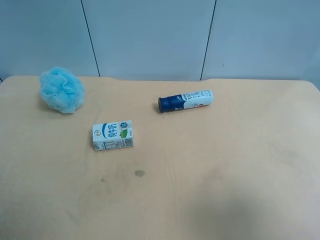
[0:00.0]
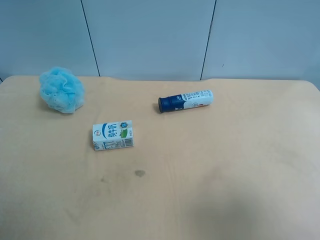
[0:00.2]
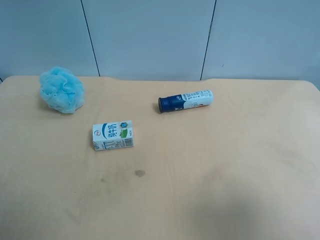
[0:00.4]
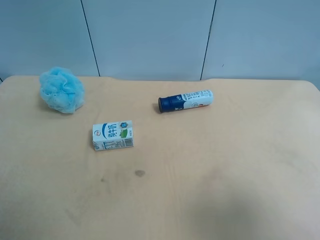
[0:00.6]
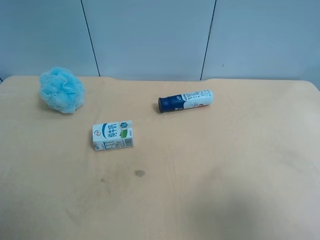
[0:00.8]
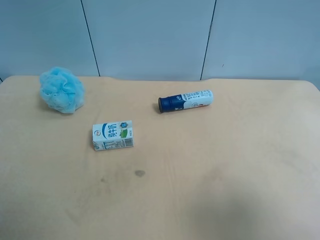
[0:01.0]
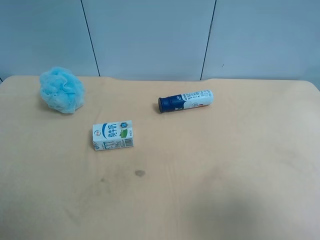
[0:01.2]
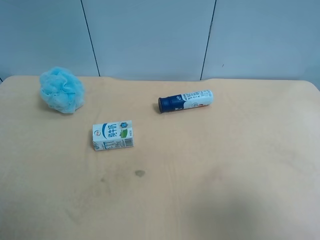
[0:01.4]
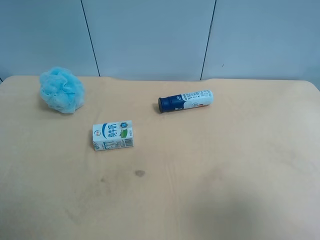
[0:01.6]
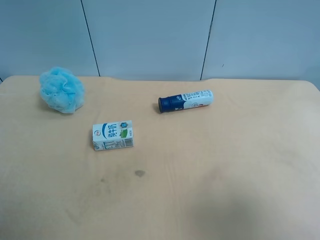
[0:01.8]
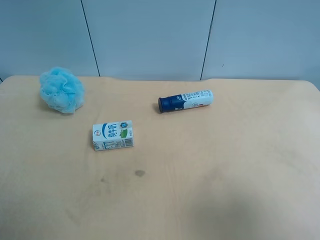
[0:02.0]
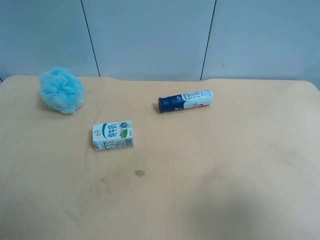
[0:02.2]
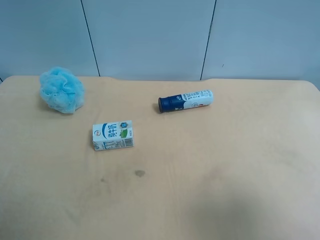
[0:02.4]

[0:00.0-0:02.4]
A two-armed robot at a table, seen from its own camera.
Task of the whole recording: use the right gripper to pick up the item and transfer it from the right gripper to the left gripper.
0:01.2 to 0:02.4: Neither gripper changes place.

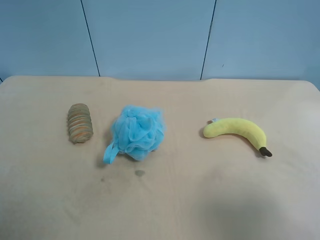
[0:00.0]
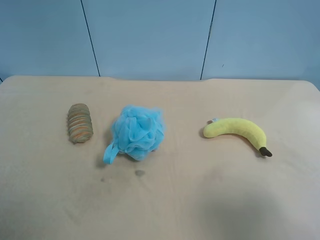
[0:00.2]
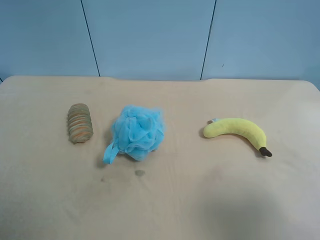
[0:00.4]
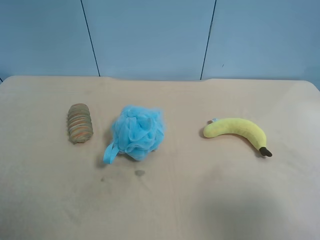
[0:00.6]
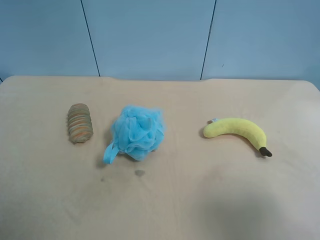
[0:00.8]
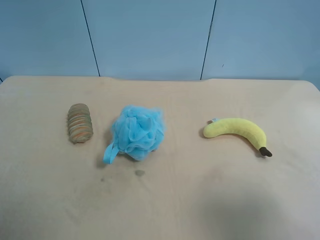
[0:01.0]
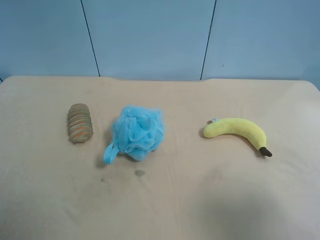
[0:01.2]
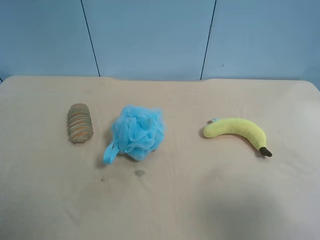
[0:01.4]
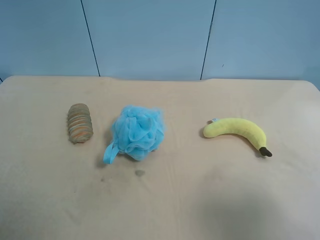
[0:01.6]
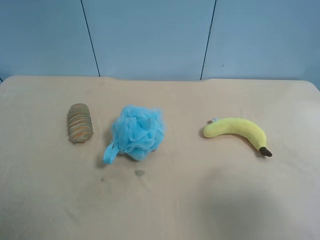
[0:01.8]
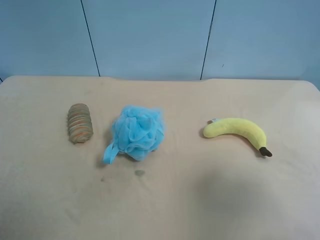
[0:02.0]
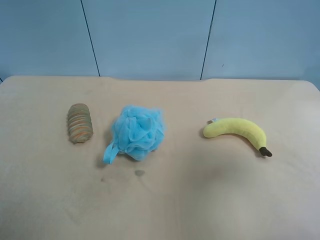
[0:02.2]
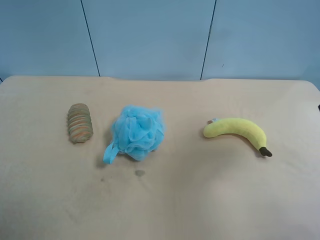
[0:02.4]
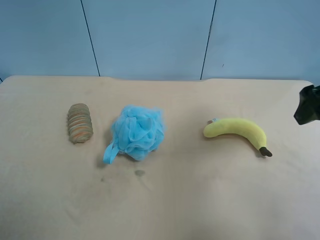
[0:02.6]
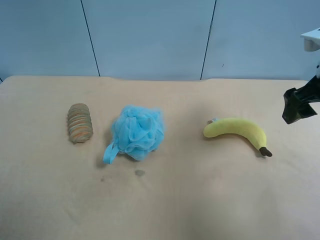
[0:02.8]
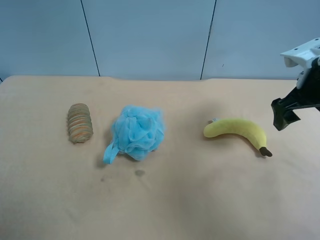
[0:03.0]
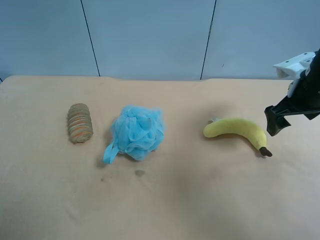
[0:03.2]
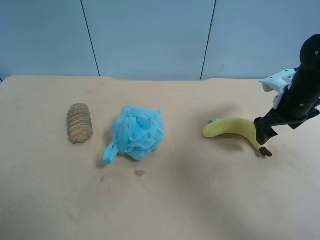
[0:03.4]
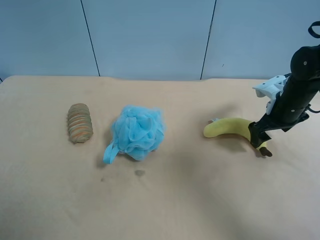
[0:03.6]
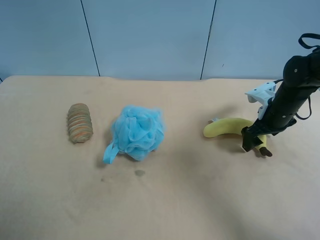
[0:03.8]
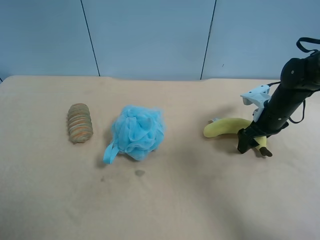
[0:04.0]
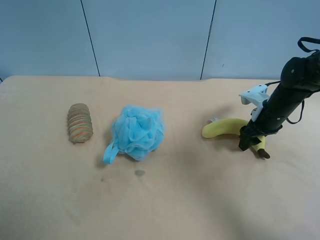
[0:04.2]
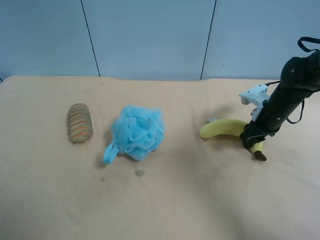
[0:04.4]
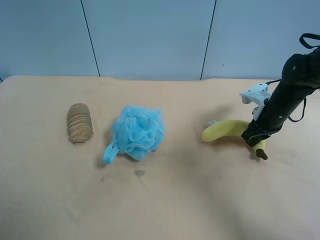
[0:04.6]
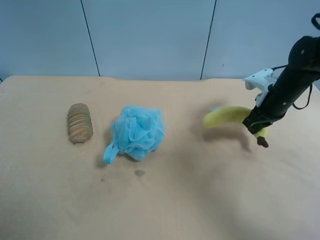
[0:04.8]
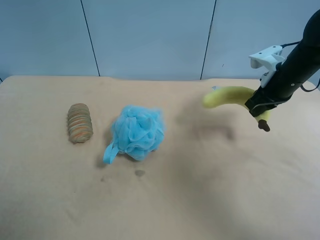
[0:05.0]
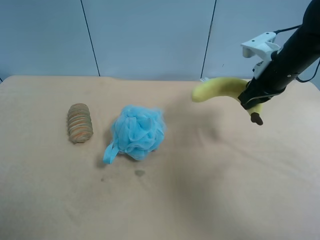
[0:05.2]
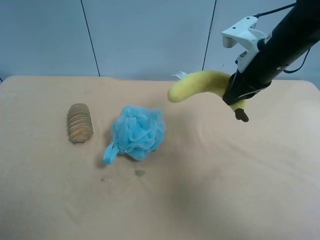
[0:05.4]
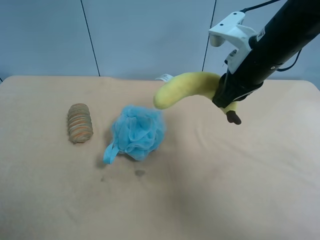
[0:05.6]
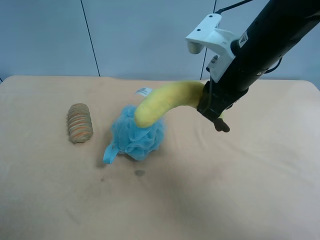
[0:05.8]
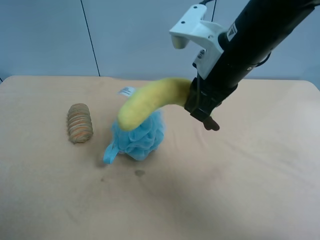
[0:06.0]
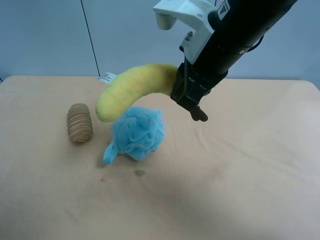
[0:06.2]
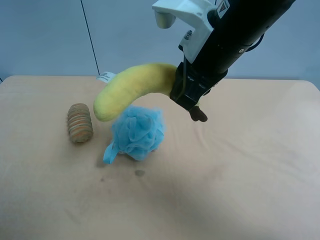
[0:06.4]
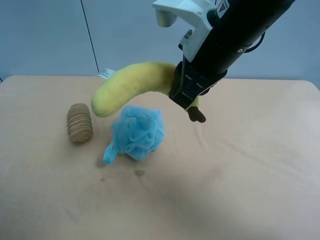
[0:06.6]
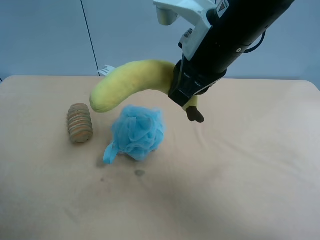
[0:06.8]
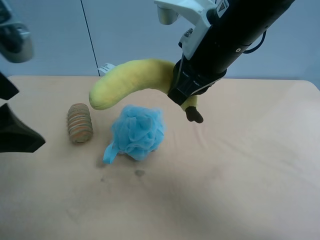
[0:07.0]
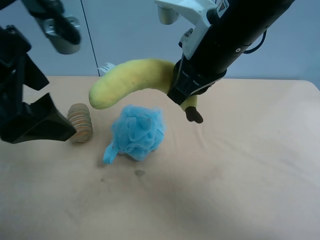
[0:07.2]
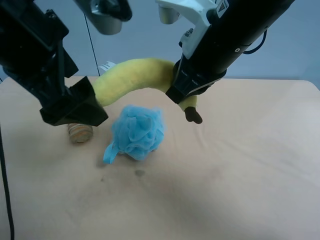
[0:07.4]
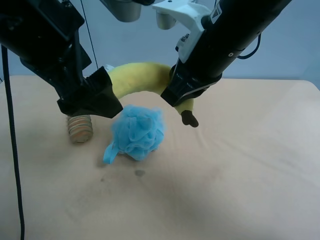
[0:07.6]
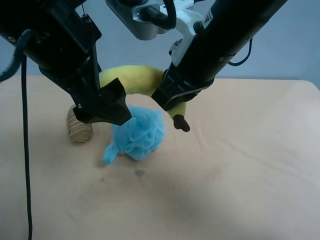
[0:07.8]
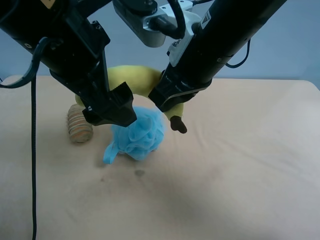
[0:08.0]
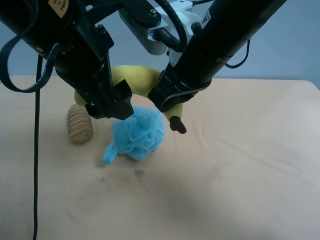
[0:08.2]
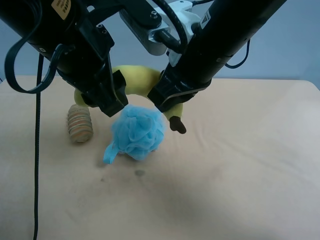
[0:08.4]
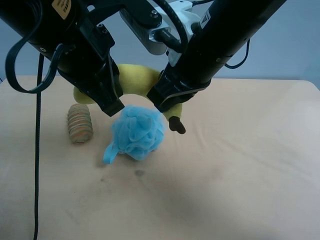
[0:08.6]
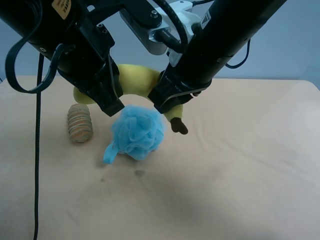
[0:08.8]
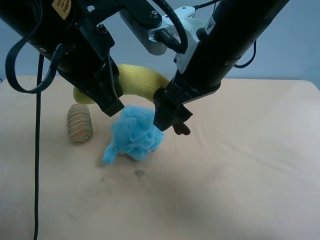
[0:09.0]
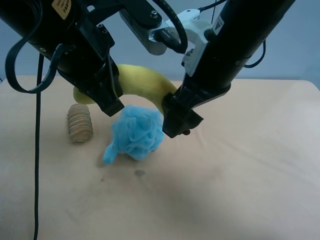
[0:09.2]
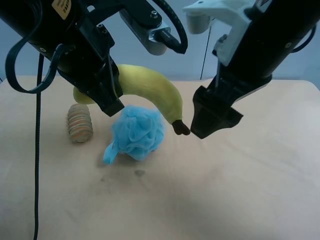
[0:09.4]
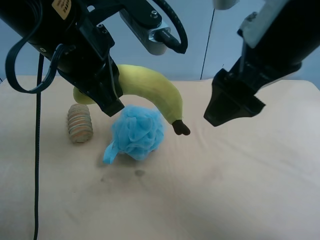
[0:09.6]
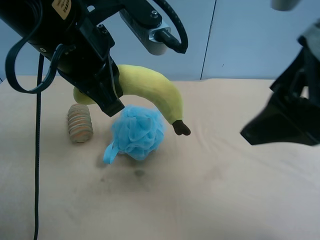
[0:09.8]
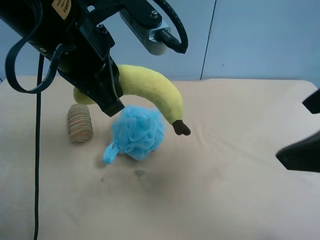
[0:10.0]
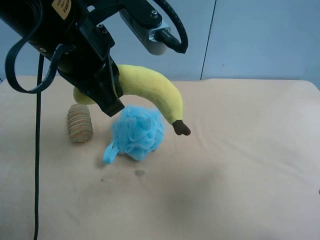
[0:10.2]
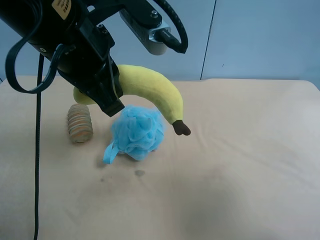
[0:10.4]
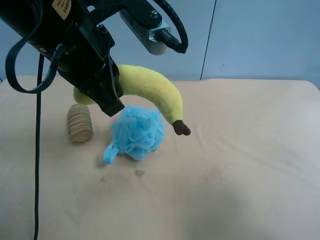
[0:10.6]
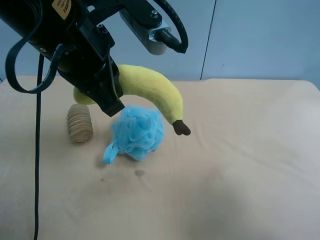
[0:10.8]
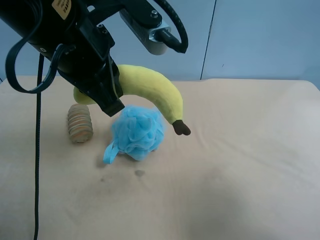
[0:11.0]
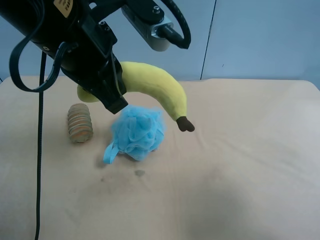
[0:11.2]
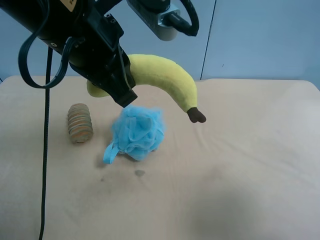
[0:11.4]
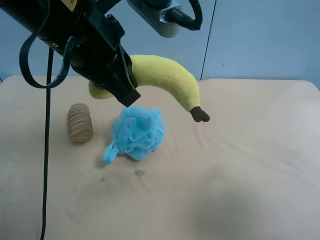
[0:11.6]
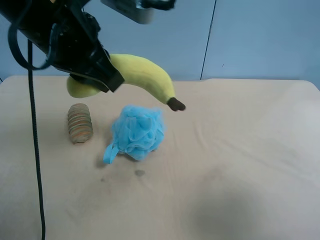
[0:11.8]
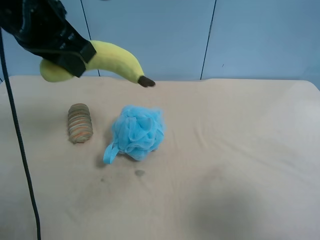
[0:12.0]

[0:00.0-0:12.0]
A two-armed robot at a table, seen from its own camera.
Task of the whole recording: use the right gripper to pick up the item and transfer it from the right gripper to the left gripper.
0:00.0 to 0:01.6: Both grippers stay put.
0:01.6 to 0:03.0: The right gripper is displaced forward by some 30 cm.
0:03.0 to 0:04.4: The right gripper is displaced downward and forward by some 15 cm, and closes its fingers.
0:04.4 to 0:06.0: The right gripper heads upward, to the left and backward, covering some 25 cm.
0:06.0 to 0:07.6: The left gripper travels to the right and forward by about 25 cm.
0:07.6 to 0:09.0: The right gripper opens; the left gripper closes.
0:09.0 to 0:10.4: The right gripper is displaced backward and to the right by roughly 30 cm.
0:10.4 to 0:12.0: The left gripper moves to the left, some 5 cm.

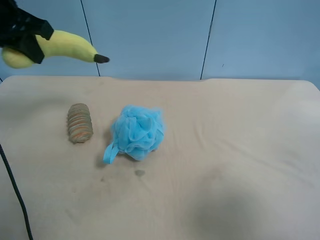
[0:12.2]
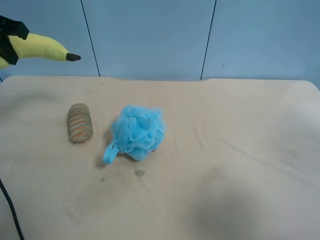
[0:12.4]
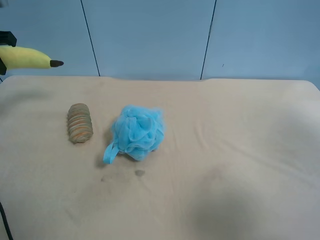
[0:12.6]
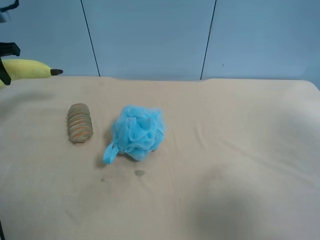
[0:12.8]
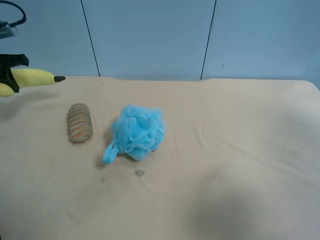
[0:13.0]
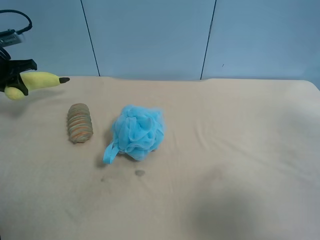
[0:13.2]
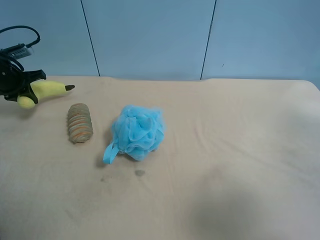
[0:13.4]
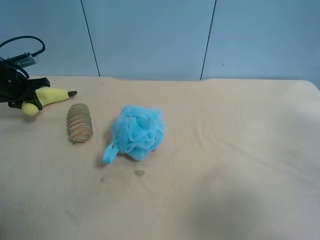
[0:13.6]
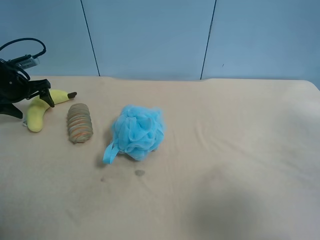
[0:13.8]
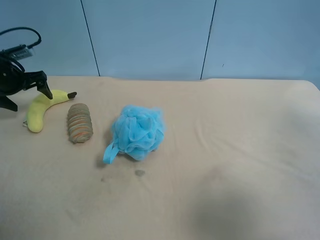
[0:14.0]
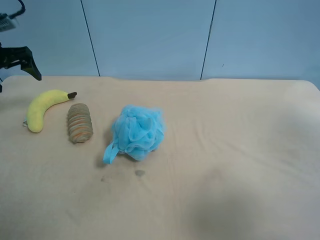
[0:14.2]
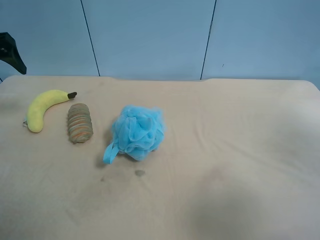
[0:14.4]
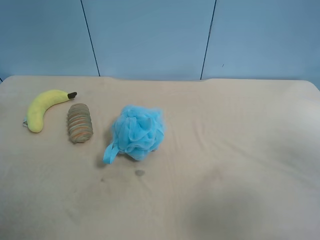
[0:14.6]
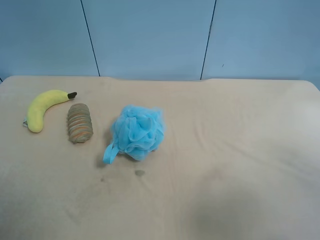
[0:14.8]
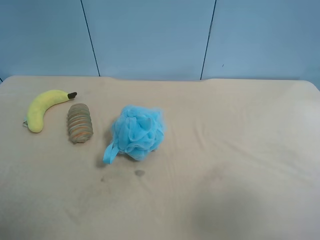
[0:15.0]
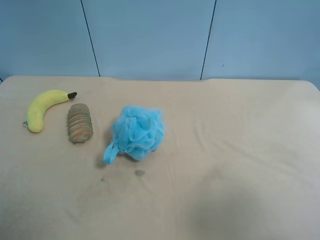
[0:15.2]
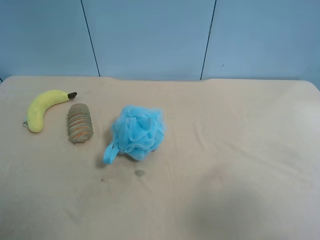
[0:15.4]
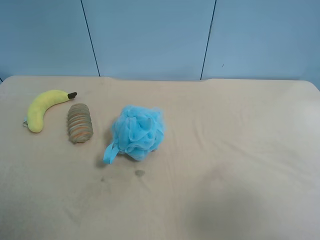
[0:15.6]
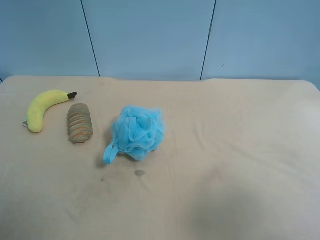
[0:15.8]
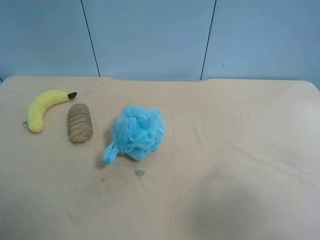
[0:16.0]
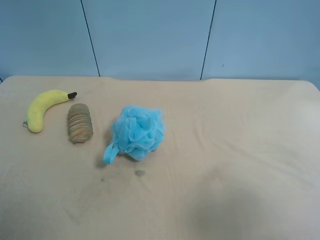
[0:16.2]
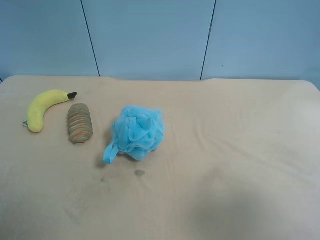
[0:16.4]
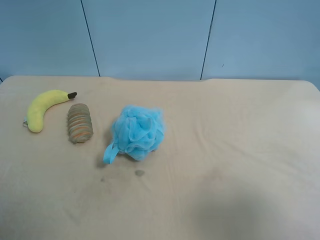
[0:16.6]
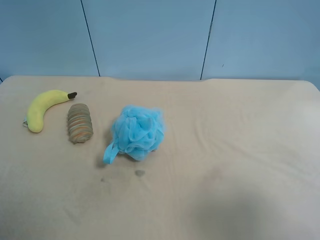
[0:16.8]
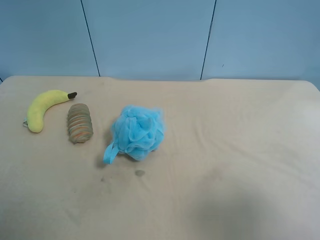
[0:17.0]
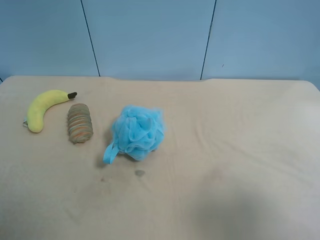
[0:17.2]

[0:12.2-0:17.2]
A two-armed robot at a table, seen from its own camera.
Task of the whole recording: use the right gripper to pick up the item and transfer it from the right gripper to the left gripper.
0:12.2 to 0:13.8: The left gripper moves downward, to the left and forward, some 30 cm, and opens.
0:13.8 to 0:15.6: The left gripper travels backward by some 40 cm.
